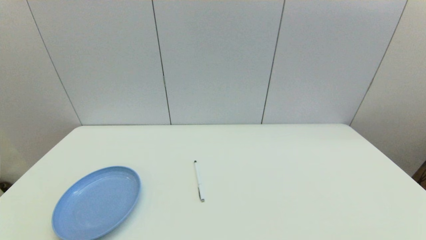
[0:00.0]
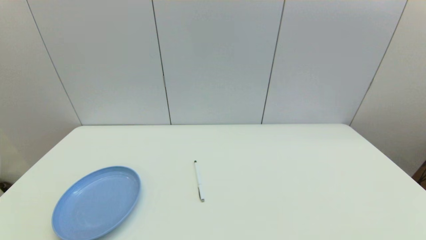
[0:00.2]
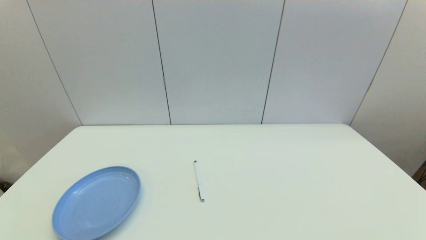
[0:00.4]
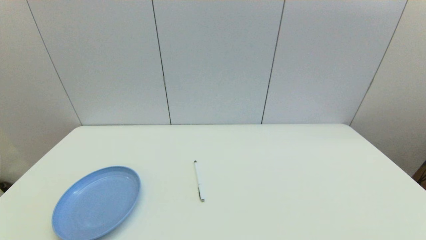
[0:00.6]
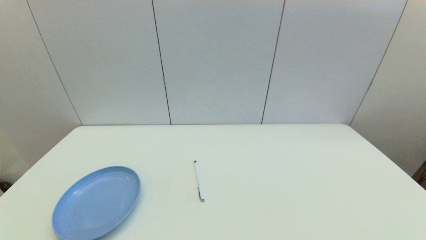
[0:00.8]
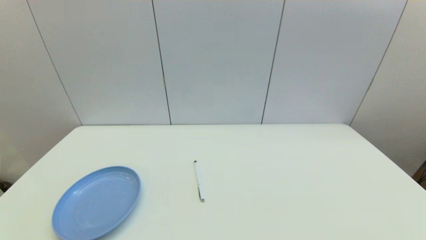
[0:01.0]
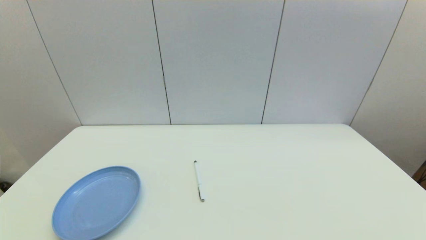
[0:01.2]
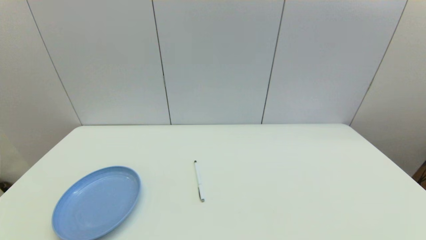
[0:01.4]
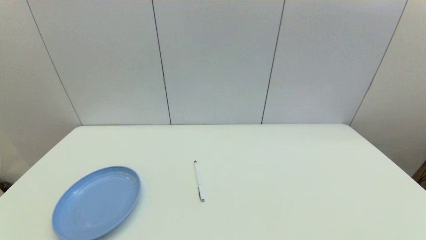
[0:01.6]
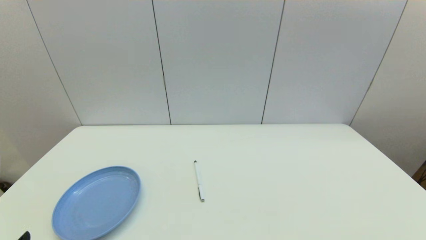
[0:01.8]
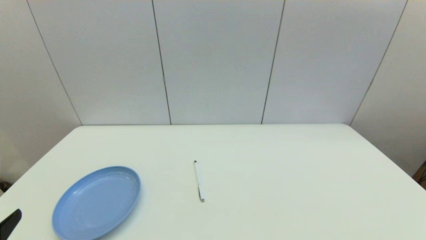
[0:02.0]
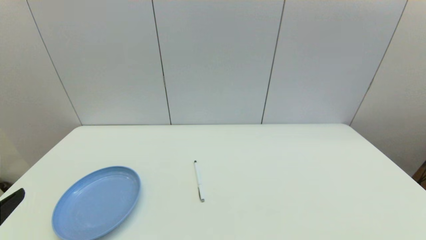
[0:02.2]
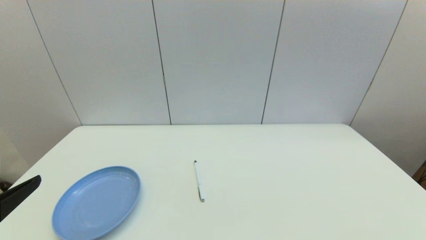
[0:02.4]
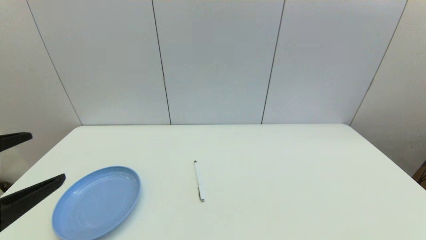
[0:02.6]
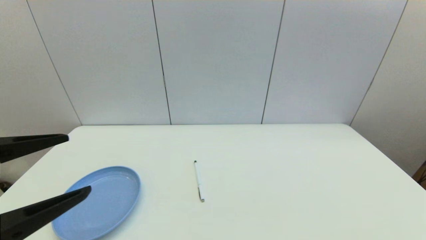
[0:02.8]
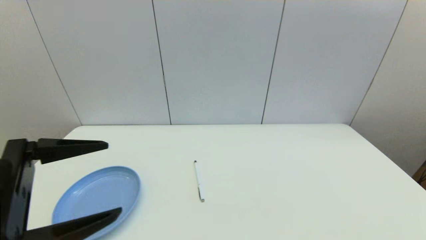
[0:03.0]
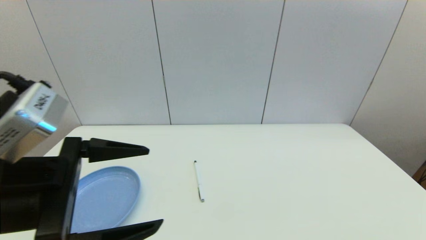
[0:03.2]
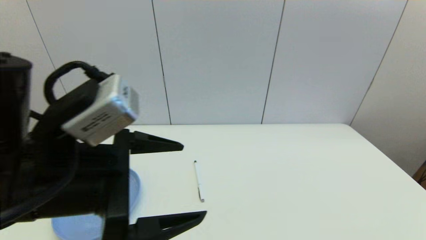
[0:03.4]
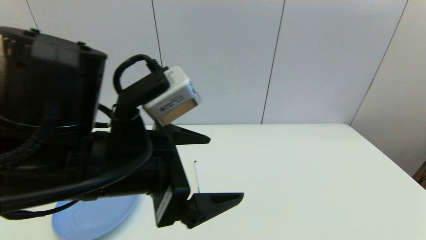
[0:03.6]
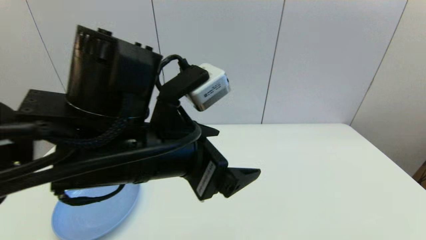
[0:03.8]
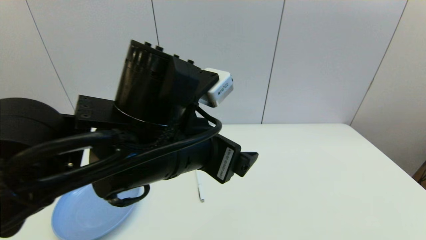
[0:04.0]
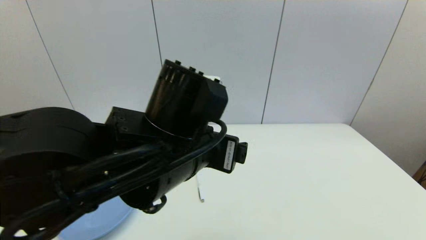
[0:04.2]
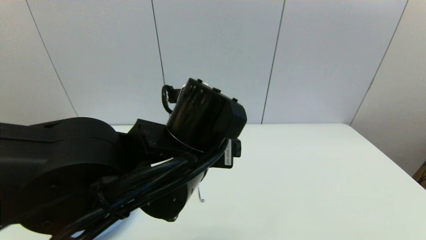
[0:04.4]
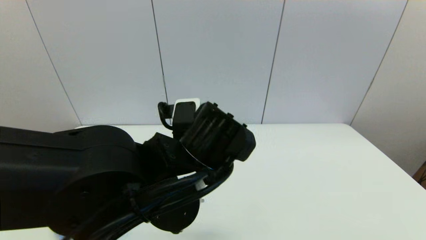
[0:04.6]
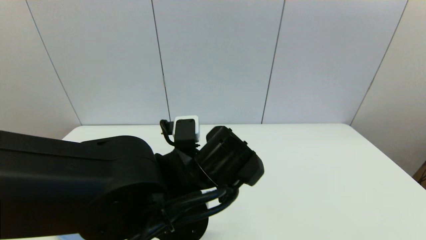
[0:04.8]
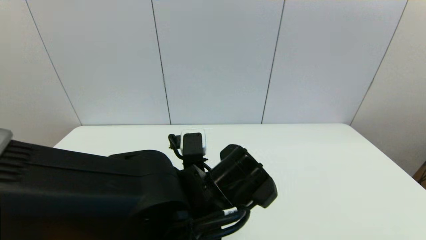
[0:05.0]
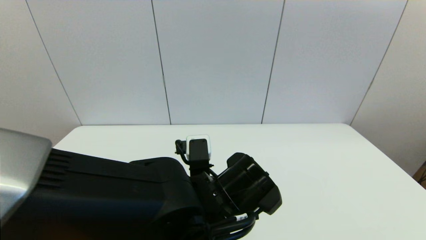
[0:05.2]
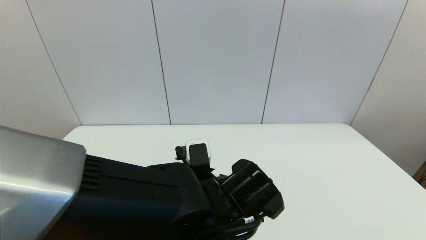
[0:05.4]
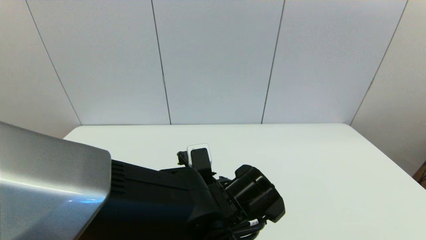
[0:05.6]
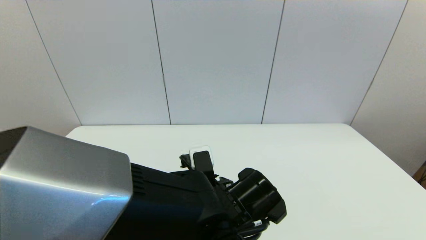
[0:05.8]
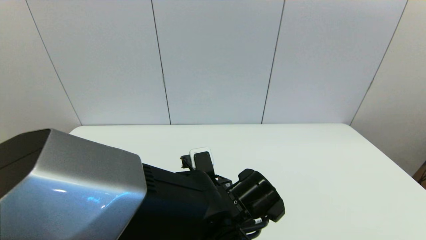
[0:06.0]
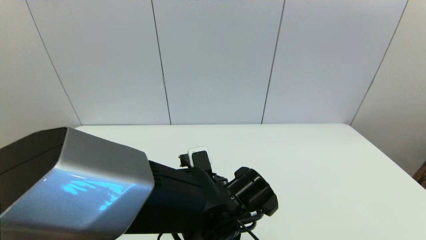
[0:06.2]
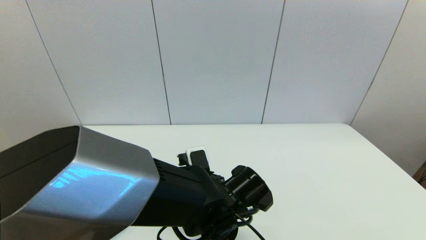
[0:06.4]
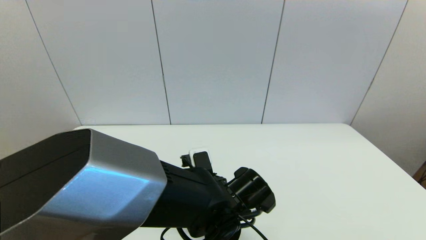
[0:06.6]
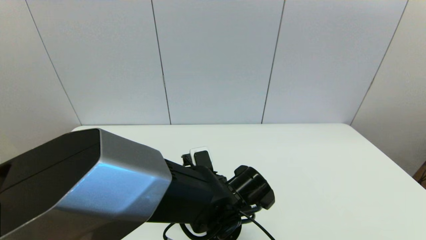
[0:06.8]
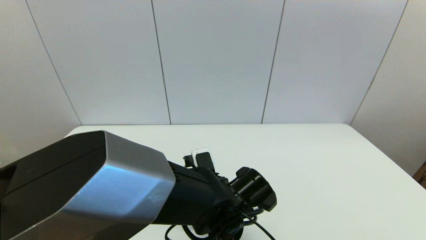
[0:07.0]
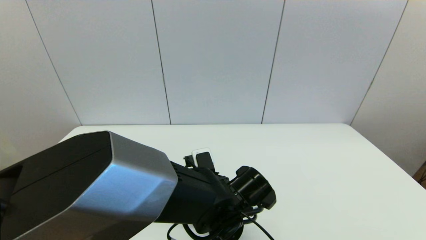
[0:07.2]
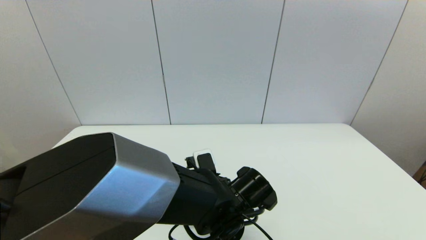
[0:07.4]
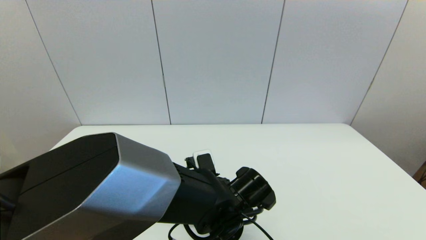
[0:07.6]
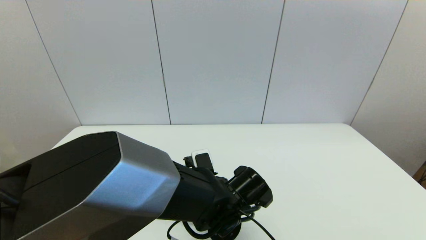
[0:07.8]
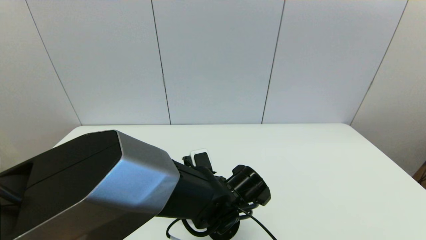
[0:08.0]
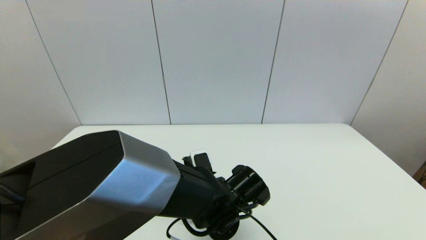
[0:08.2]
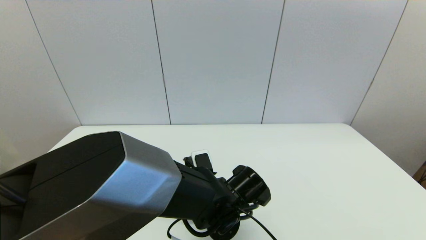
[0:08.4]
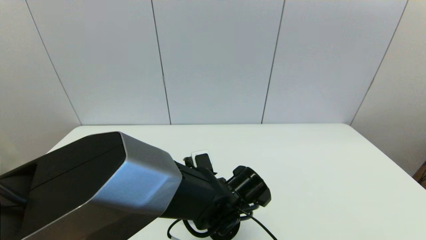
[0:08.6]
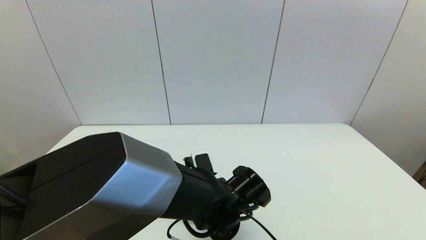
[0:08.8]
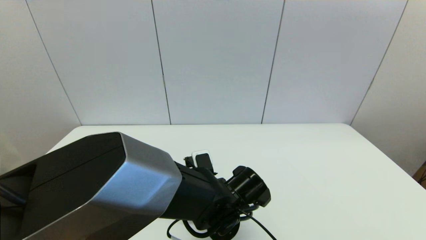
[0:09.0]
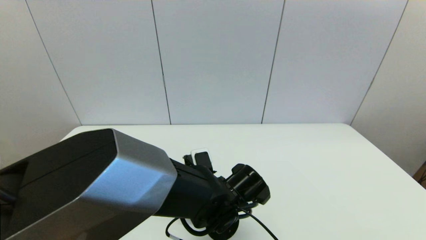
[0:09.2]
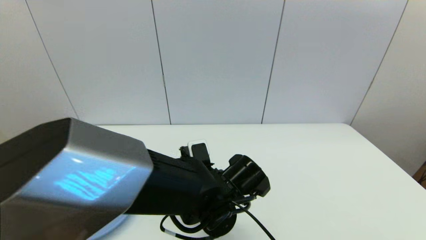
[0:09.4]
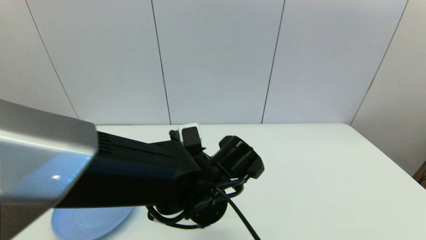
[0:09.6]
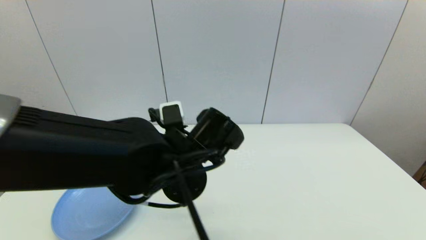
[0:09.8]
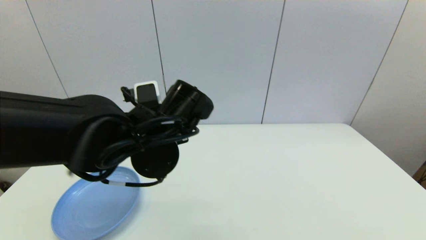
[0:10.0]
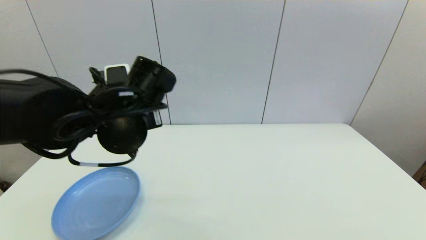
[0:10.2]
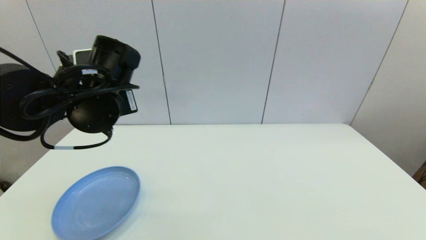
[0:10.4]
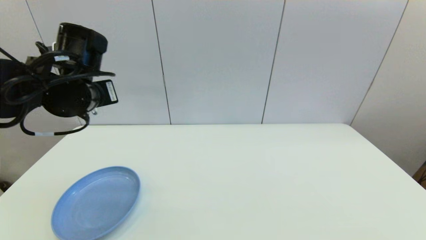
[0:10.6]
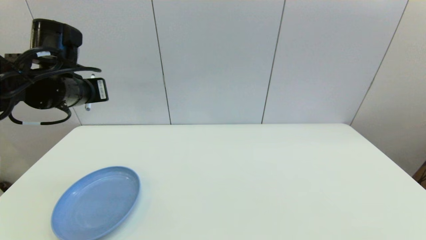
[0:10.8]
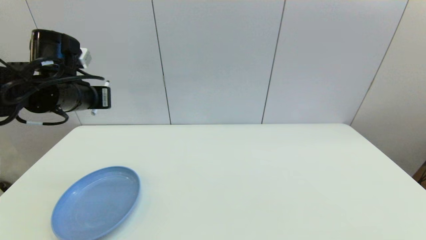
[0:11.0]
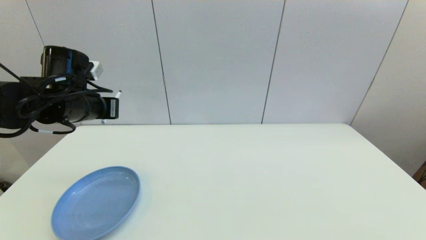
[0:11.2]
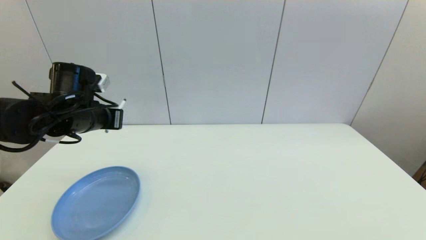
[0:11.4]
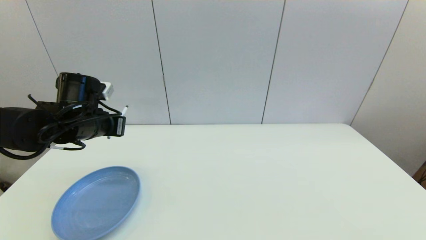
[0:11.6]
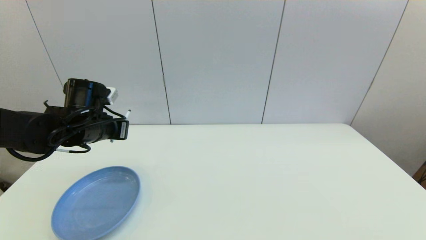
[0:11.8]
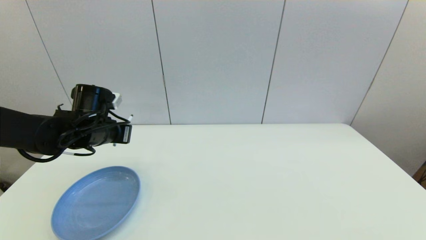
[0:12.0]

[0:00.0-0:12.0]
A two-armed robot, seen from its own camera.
Task of the whole recording: put the pen in the designated position.
Step, 0:01.8 to 0:09.0: Grasp the sign pen with left gripper.
0:01.6 to 0:03.0: The left gripper travels upward, forward and to the right by about 20 cm.
0:03.0 to 0:04.4: The left gripper moves to the right and forward, roughly 20 cm.
0:04.4 to 0:06.0: The left gripper goes roughly 10 cm downward.
0:06.0 to 0:07.6: The grippers stay close to where they were, moving slightly.
0:07.6 to 0:09.0: The left gripper closes its fingers.
0:09.0 to 0:10.4: The left gripper travels upward and to the left by approximately 25 cm.
0:10.4 to 0:12.0: The left gripper is displaced downward, to the left and forward by roughly 15 cm.

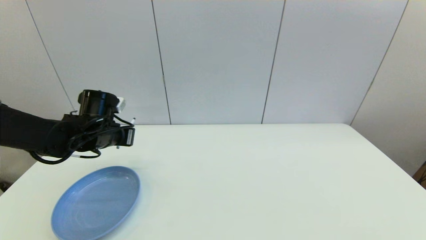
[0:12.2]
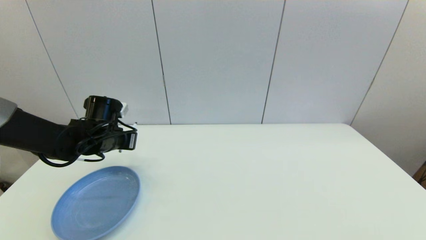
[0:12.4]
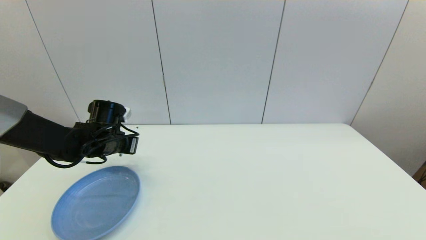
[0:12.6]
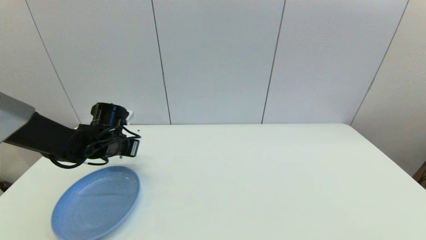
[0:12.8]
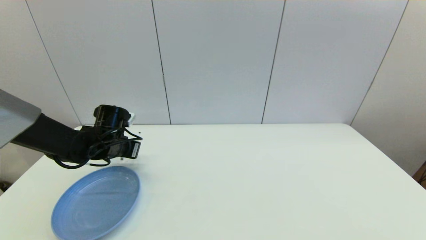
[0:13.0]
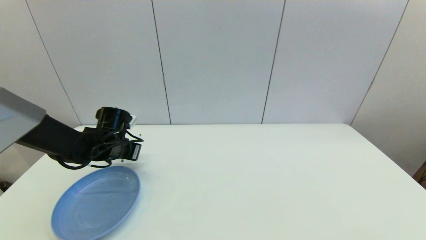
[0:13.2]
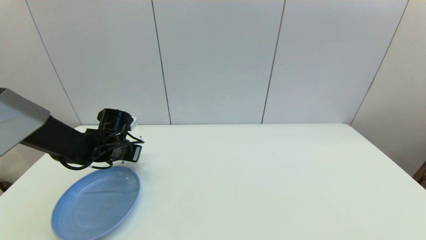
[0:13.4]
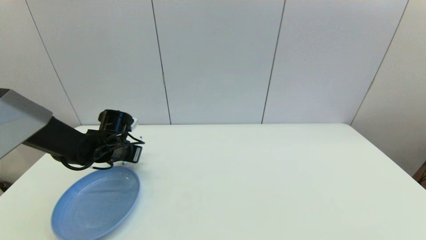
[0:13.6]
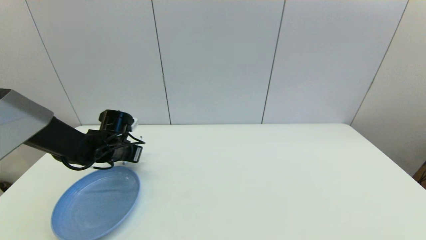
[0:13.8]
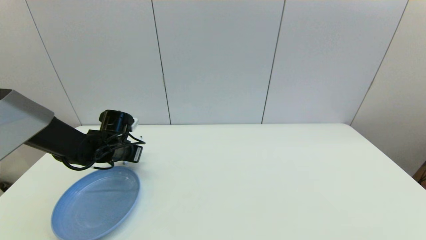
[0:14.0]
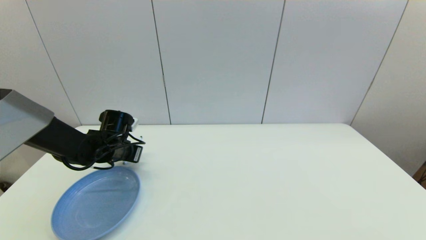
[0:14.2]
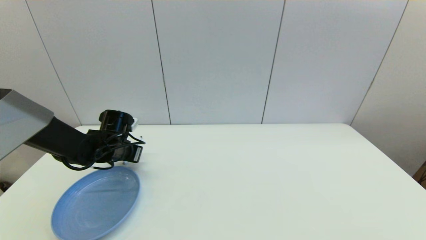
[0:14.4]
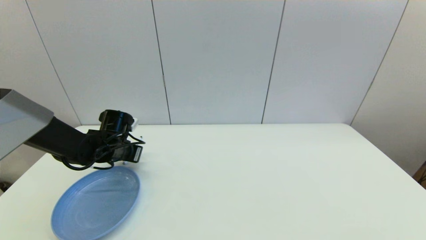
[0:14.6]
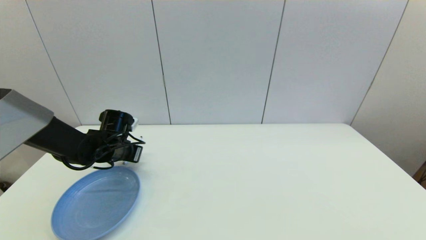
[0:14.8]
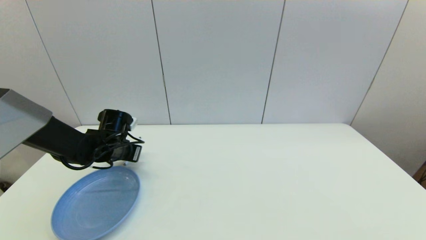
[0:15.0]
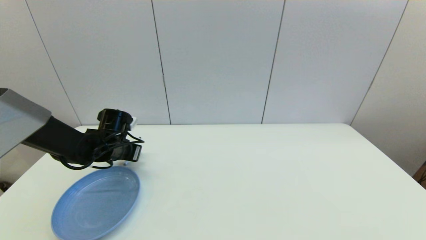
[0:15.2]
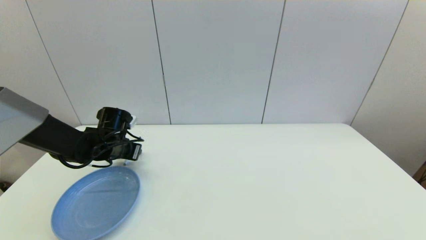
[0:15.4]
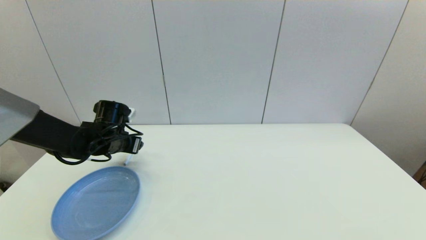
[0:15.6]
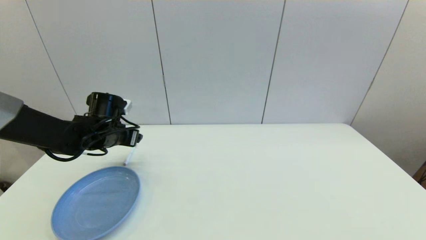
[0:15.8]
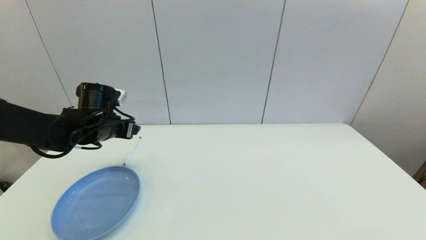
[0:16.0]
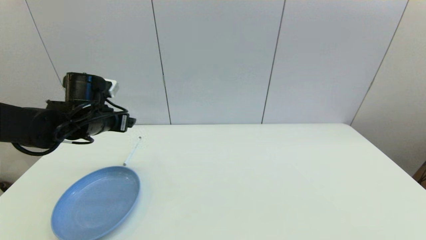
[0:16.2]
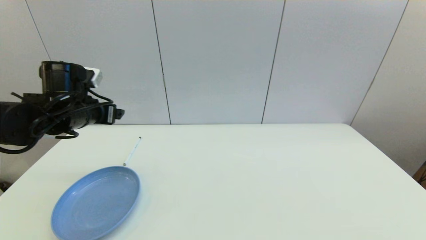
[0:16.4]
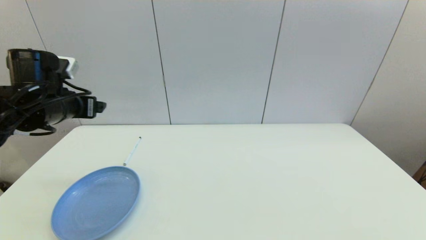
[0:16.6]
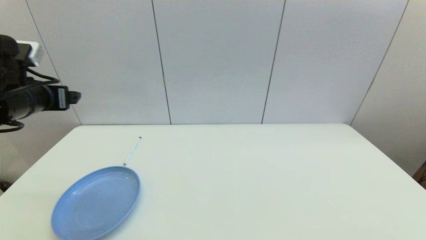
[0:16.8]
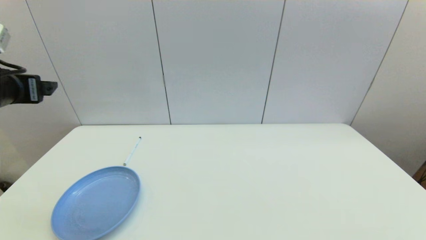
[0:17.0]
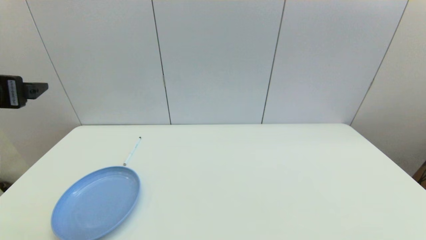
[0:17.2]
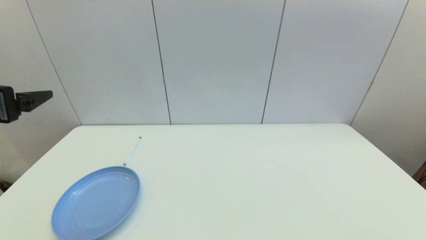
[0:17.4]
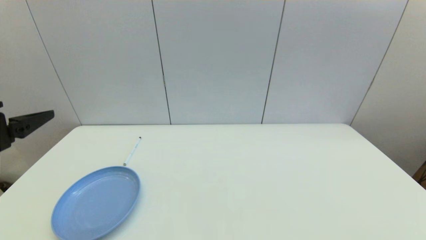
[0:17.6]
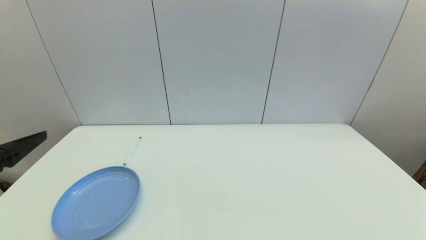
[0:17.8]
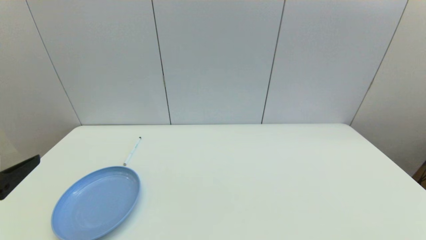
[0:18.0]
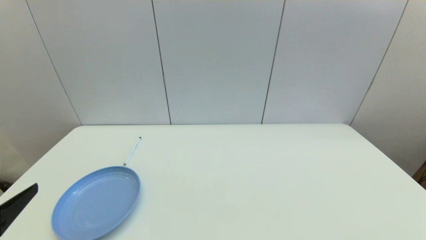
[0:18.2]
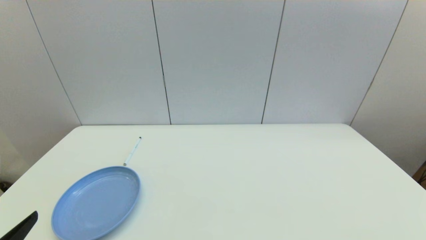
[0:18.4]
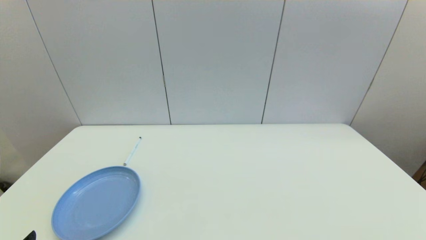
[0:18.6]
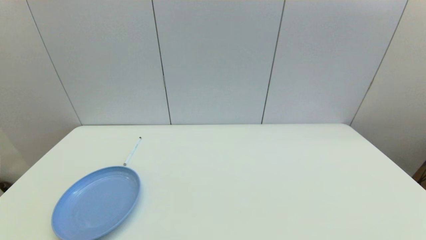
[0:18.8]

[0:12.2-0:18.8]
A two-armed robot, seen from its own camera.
Task of the whole recording: put the pen in the designated position.
Step, 0:12.2 to 0:15.2: Place the sign pen on the table with left gripper.
0:12.2 to 0:13.8: The left gripper is displaced downward by about 5 cm.
0:13.8 to 0:15.4: The left gripper opens.
0:15.4 to 0:17.2: The left gripper travels upward and backward by approximately 25 cm.
0:17.2 to 0:18.8: The left gripper heads backward and downward, covering some 30 cm.
